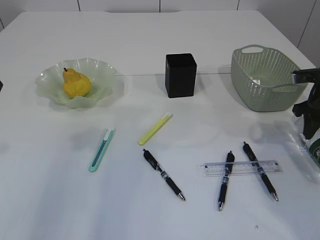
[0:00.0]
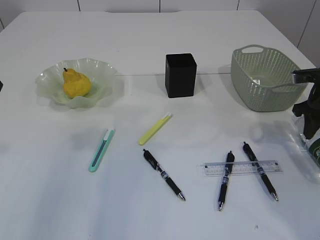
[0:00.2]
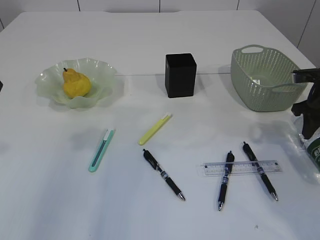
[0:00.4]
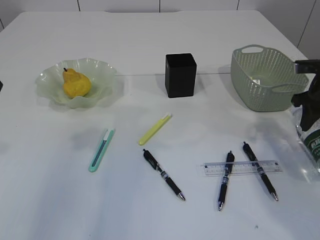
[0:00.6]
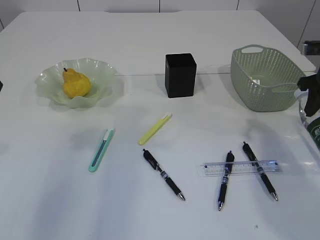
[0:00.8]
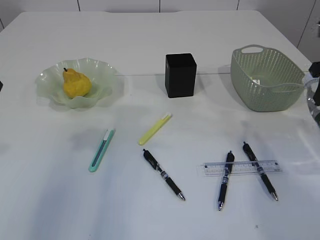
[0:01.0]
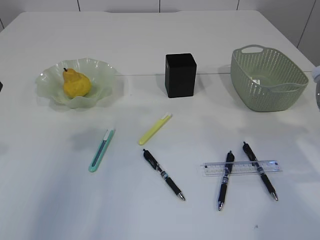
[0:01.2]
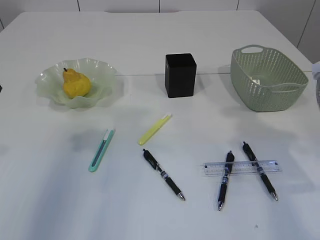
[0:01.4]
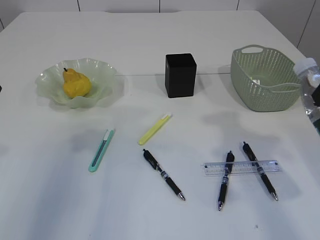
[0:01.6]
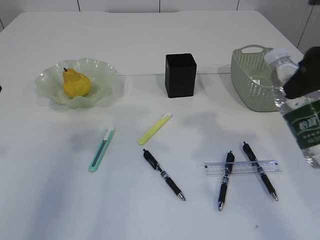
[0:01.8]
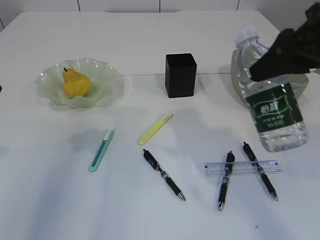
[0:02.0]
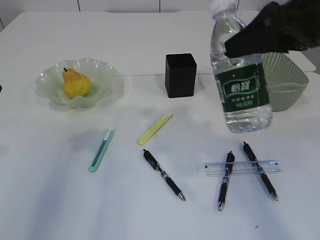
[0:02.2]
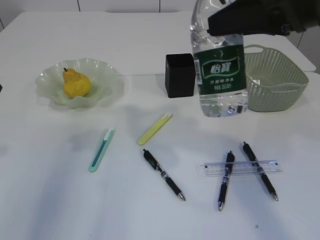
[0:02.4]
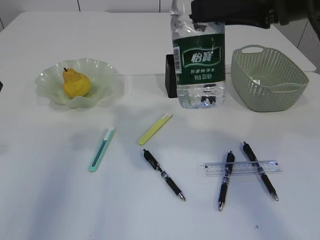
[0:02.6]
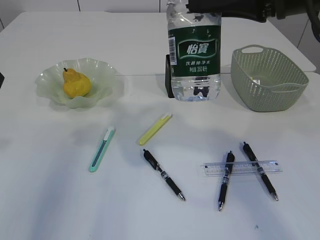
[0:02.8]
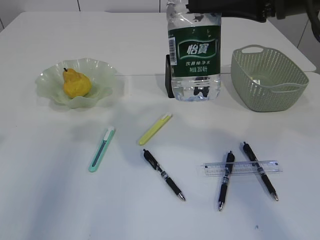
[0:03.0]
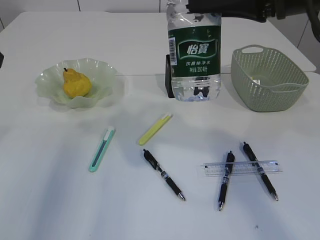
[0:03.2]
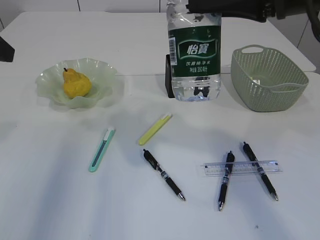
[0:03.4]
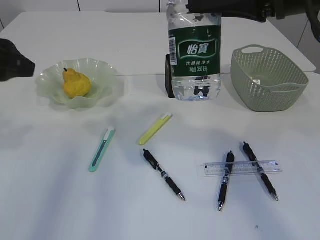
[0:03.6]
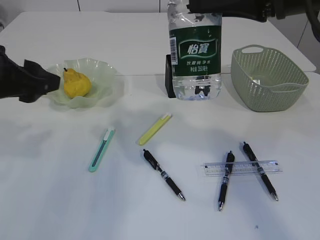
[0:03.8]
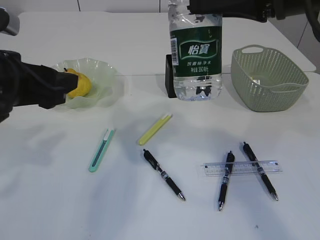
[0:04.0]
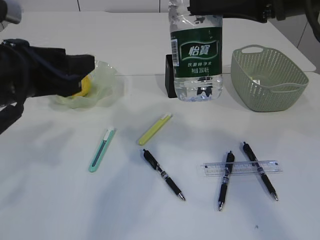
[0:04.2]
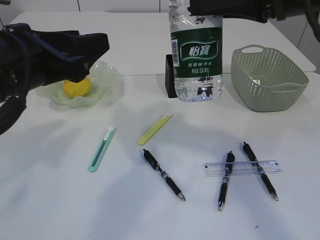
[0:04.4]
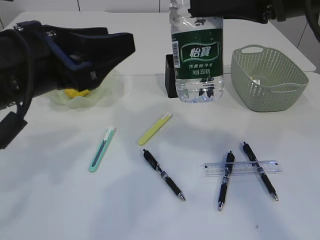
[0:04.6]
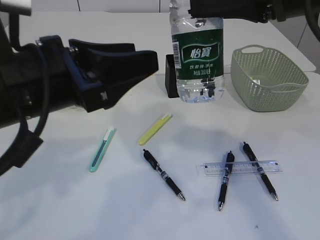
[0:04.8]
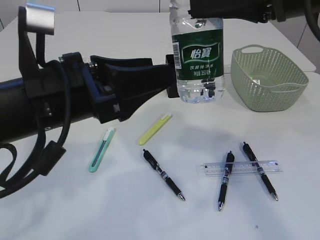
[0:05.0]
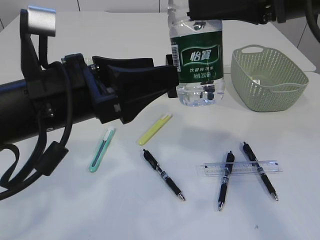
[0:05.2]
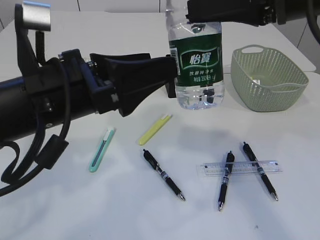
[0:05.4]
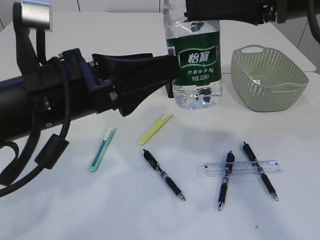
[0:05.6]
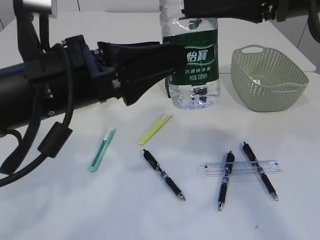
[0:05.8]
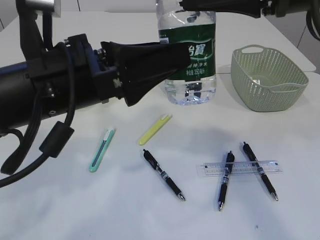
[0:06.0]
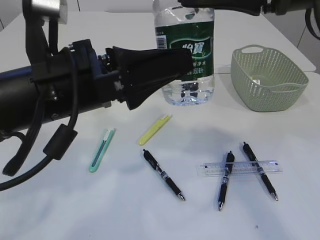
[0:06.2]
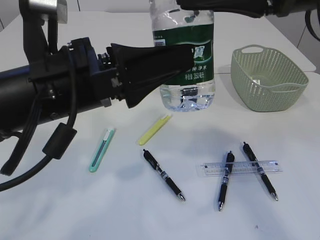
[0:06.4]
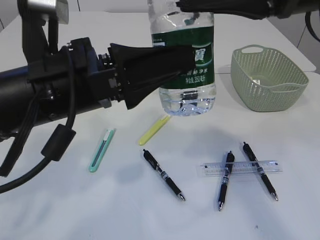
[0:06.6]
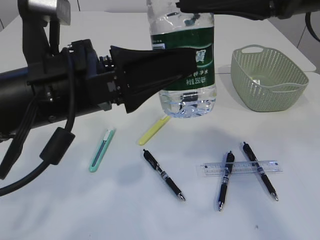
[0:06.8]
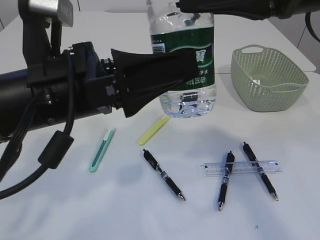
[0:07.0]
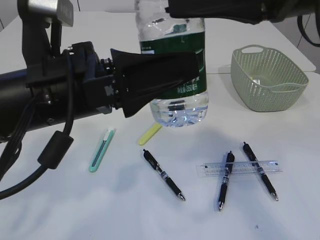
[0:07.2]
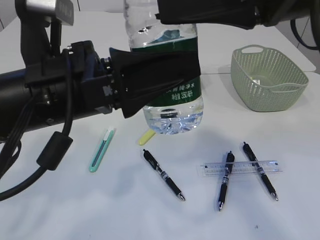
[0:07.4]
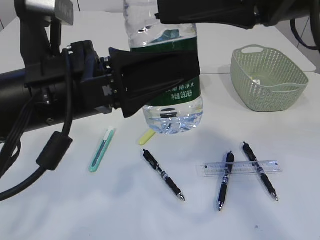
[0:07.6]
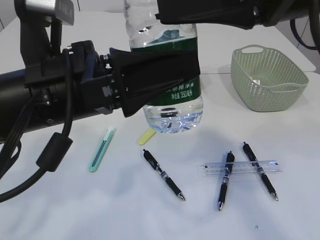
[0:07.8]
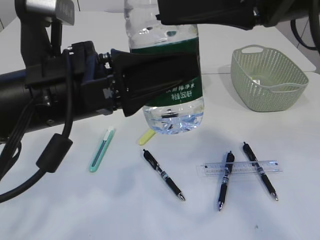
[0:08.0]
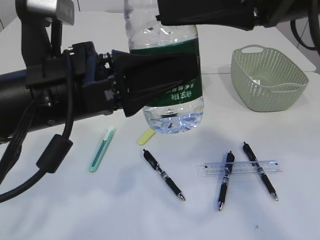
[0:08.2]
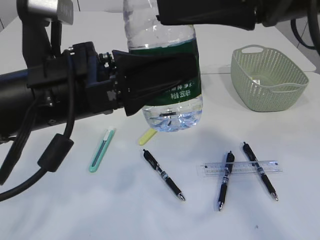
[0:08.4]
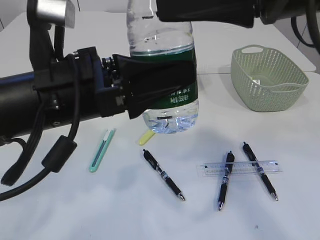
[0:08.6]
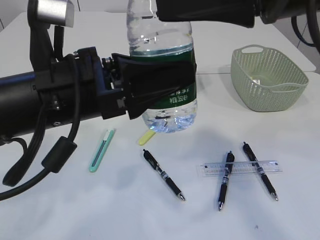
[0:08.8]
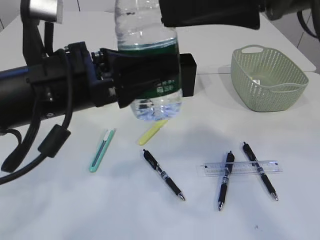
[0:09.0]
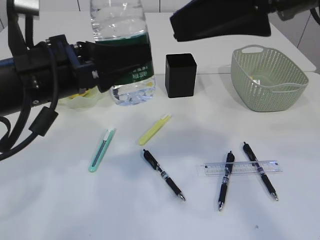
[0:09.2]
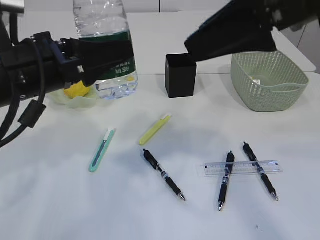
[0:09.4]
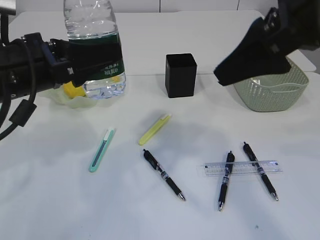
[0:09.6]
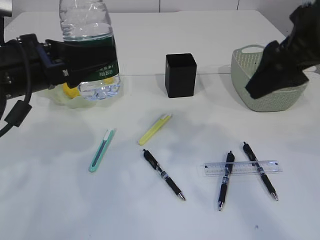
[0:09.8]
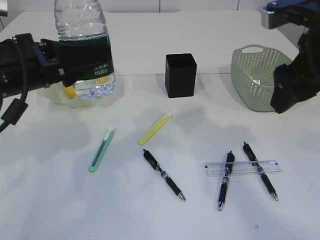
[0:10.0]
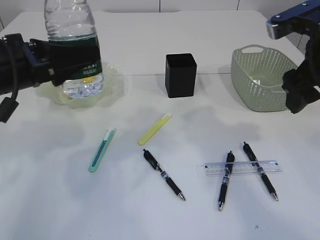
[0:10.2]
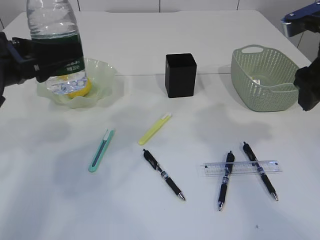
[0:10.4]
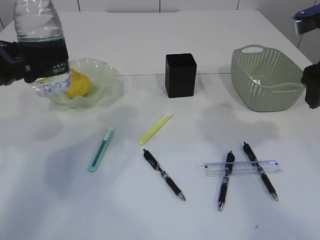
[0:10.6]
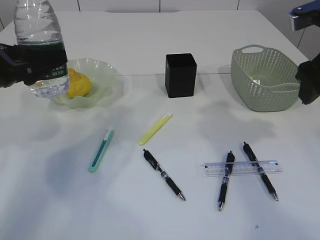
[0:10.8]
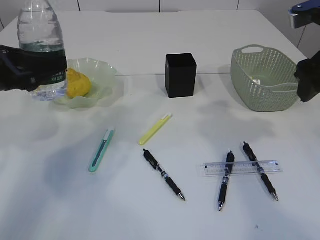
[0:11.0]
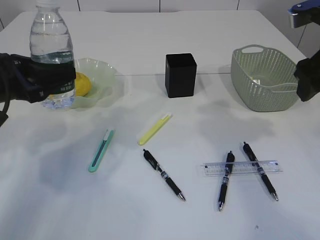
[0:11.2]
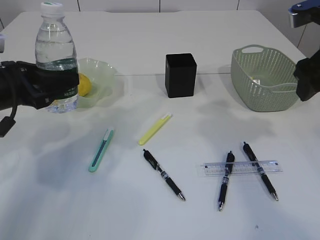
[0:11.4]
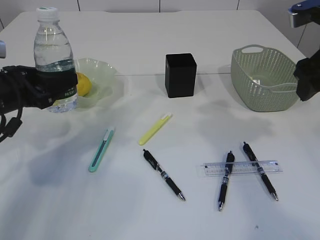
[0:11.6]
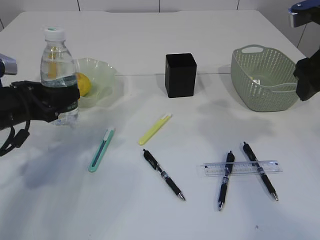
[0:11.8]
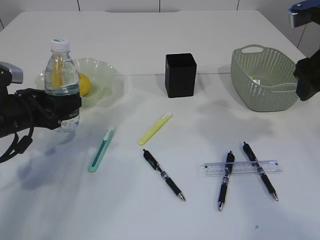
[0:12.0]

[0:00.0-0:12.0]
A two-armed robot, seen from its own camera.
Step, 0:00.8 to 0:09.0: transfer the bottle to the left arm.
0:00.0 to 0:01.6: The right gripper moves upward, backward and to the left, approximately 25 cm.
0:01.6 to 0:03.0: The right gripper shifts some 10 cm to the left.
0:03.0 to 0:04.4: The left gripper heads to the right and downward, covering about 15 cm.
0:04.4 to 0:06.0: The left gripper moves to the right, approximately 5 cm.
0:06.0 to 0:07.6: The grippers make only small movements.
0:07.6 to 0:09.0: The left gripper closes up. Meanwhile the right gripper opens its fingers.
0:09.0 to 0:10.4: The left gripper heads to the left and forward, covering about 15 cm; the right gripper heads to the right, downward and forward, covering about 15 cm.
0:10.4 to 0:12.0: The left gripper shifts about 10 cm downward.

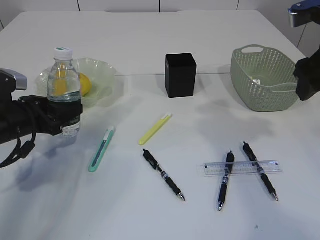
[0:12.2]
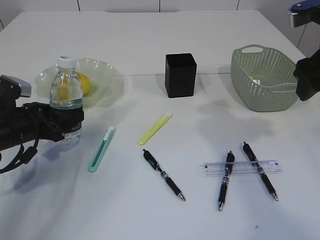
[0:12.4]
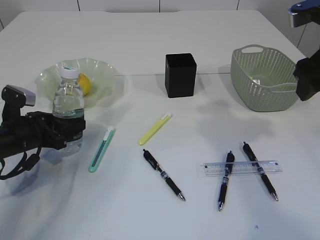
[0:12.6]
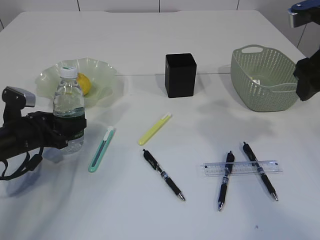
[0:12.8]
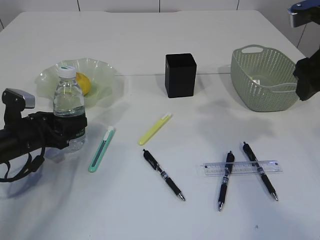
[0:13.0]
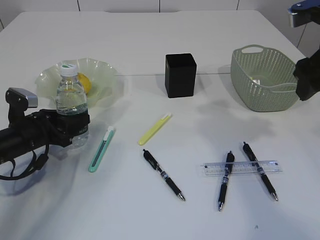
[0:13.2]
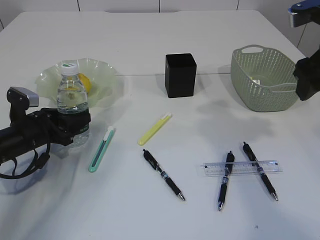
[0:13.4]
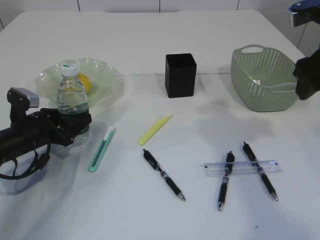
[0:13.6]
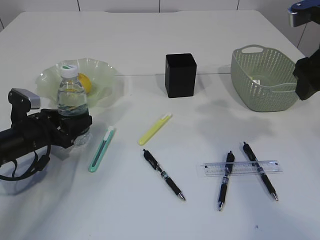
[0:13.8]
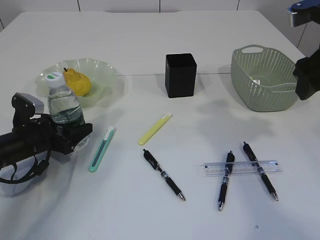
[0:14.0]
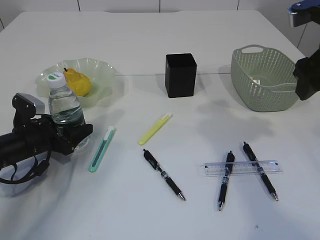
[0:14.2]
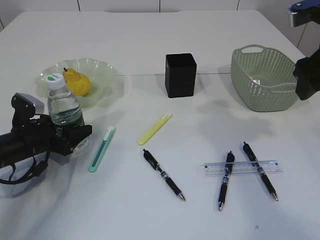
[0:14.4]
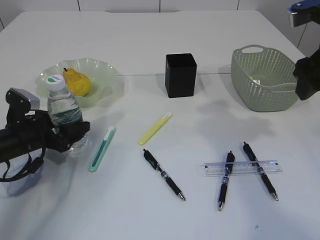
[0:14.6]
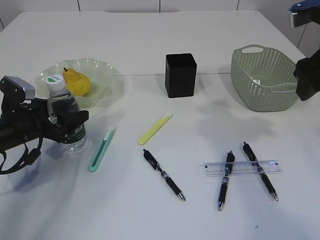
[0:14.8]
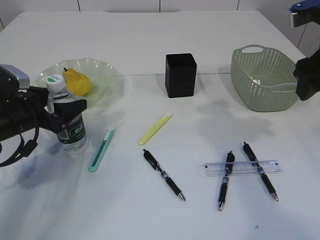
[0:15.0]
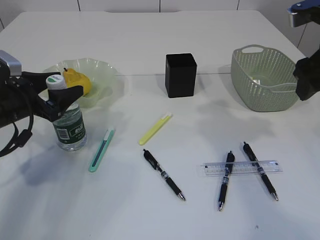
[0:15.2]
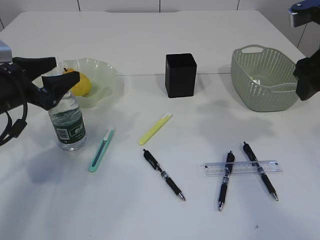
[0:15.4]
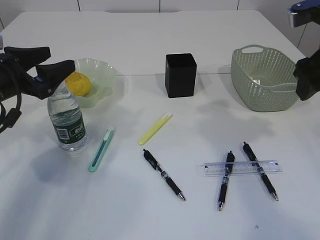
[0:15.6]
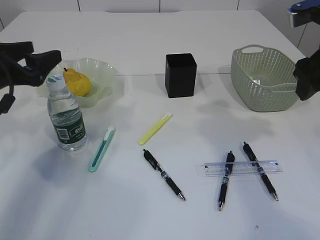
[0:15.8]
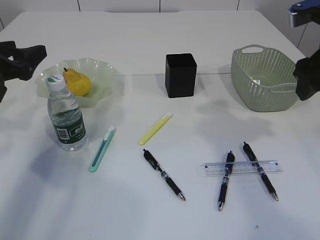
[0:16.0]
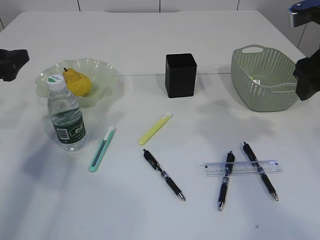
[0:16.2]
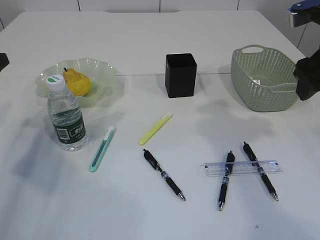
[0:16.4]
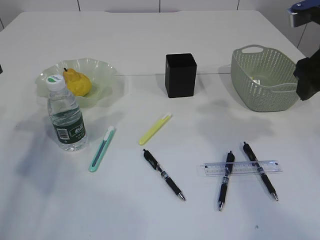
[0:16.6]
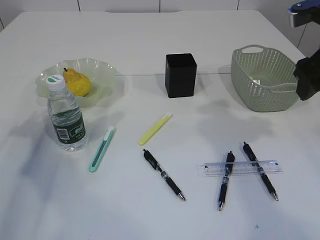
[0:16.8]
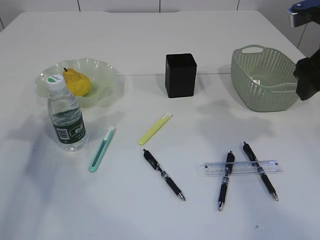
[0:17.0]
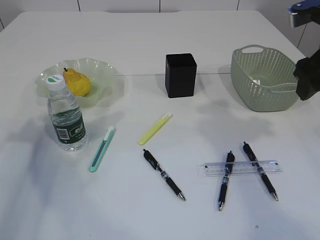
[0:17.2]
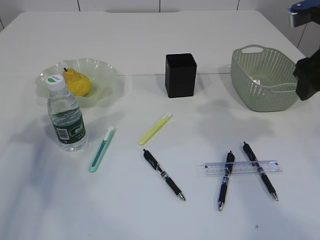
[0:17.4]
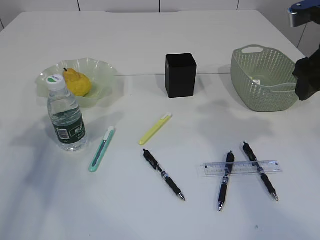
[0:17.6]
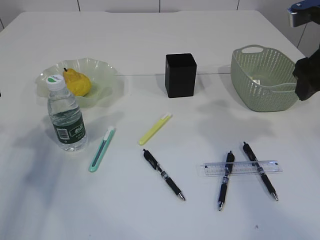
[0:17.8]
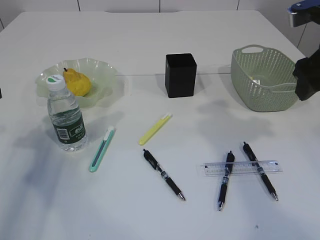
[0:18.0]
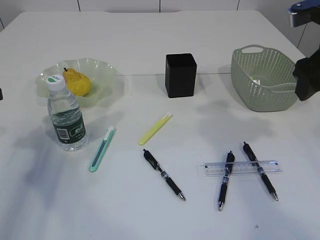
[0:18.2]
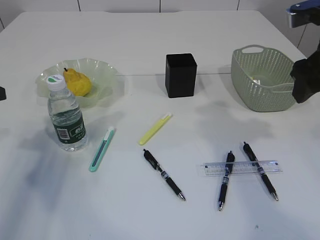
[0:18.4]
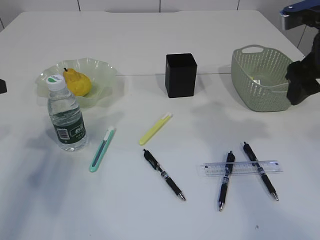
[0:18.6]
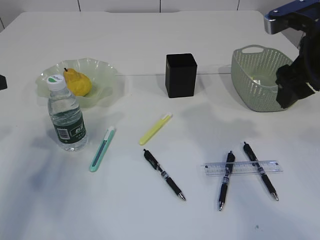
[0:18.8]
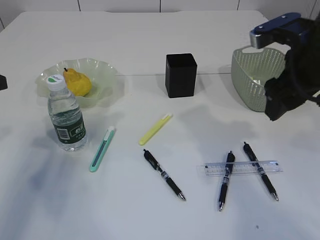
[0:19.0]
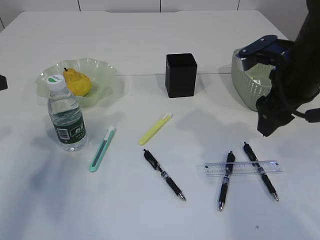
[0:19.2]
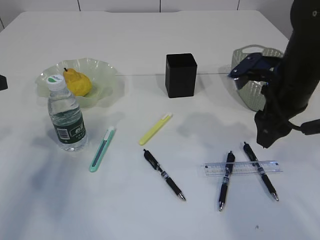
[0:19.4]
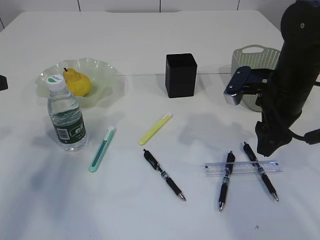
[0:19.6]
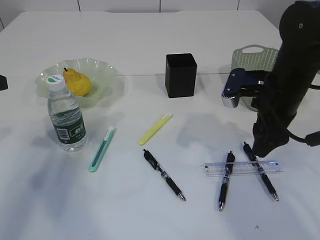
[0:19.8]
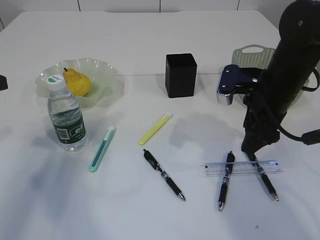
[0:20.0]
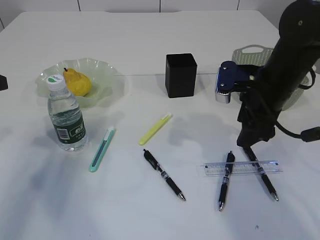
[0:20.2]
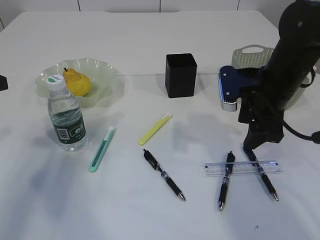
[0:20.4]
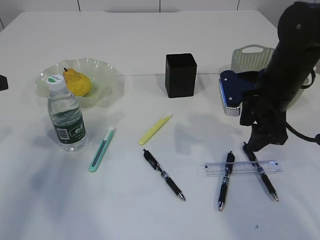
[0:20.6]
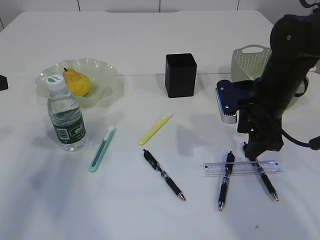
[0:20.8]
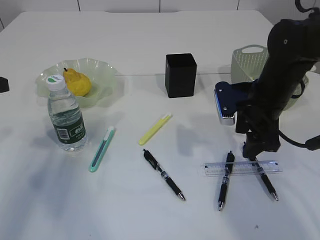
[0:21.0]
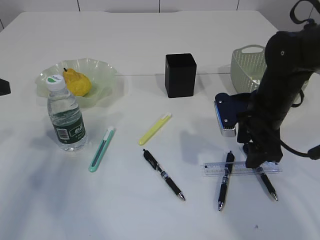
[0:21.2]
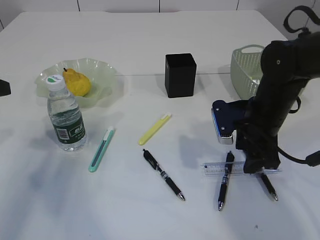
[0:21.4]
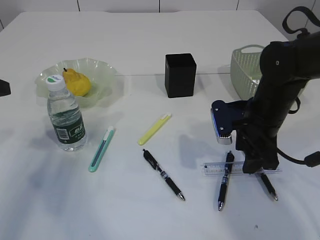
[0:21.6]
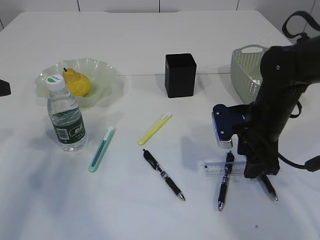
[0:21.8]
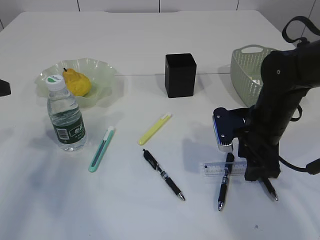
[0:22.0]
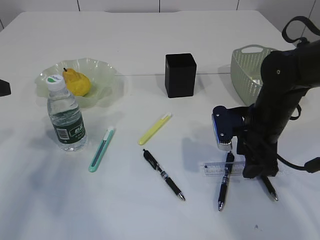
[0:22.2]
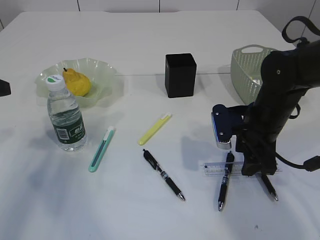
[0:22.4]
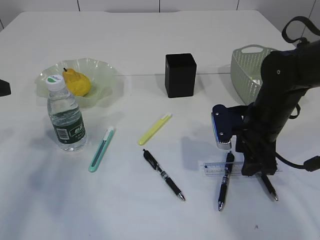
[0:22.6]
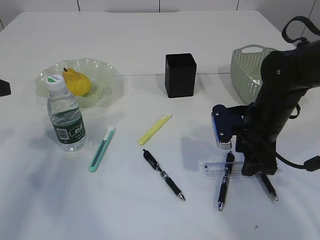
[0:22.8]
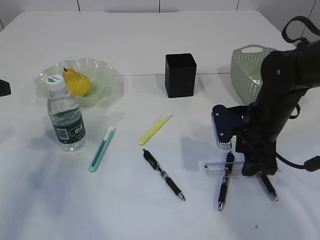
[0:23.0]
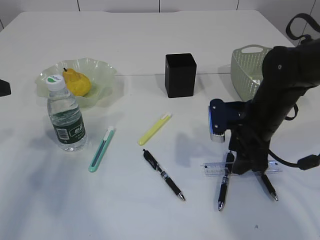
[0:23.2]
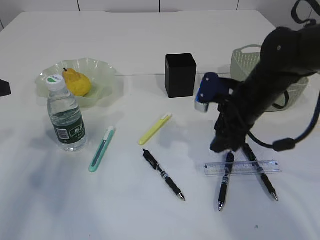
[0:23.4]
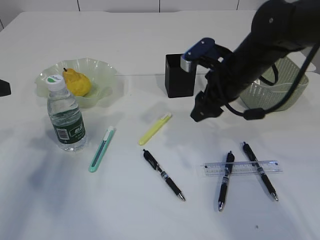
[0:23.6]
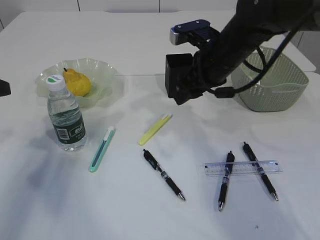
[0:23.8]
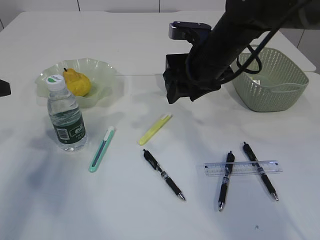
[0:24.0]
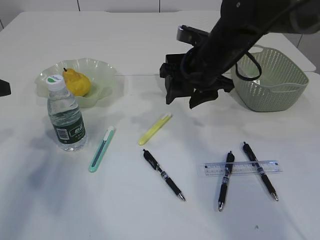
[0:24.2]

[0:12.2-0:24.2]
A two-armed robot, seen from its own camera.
Step, 0:12.2 to 0:15.8: Place the bottle.
0:12.2 to 0:13.8: The left gripper heads downward, covering some 5 cm.
0:13.8 to 0:15.2: The left gripper heads upward, covering approximately 10 cm.
0:15.2 to 0:16.6: The left gripper heads to the left and upward, covering approximately 10 cm.
0:18.2 to 0:19.8: The right gripper travels downward and to the left by approximately 10 cm.
0:21.2 to 0:22.6: The grippers move only a little.
0:22.6 to 0:24.2: The right gripper heads to the left, upward and forward, covering some 15 cm.
